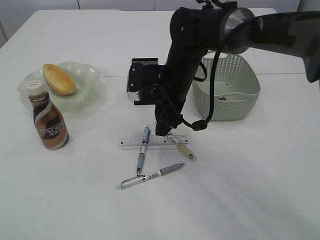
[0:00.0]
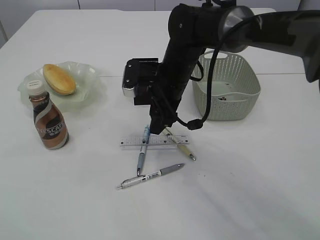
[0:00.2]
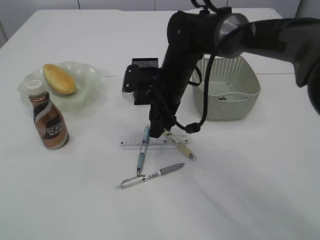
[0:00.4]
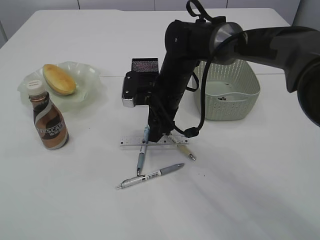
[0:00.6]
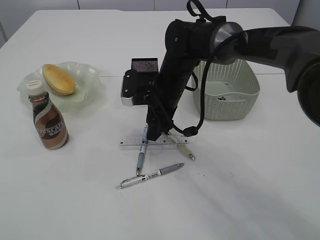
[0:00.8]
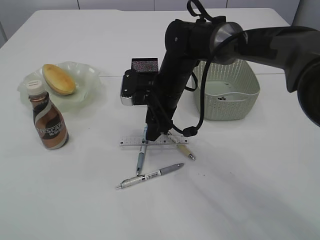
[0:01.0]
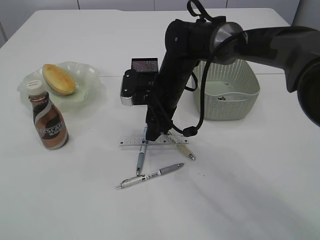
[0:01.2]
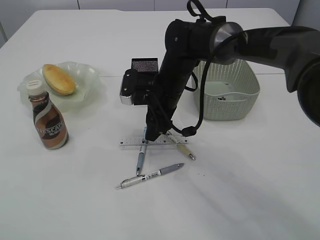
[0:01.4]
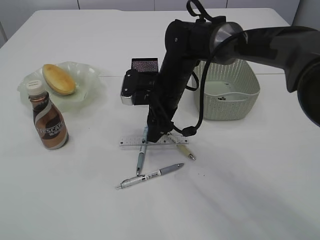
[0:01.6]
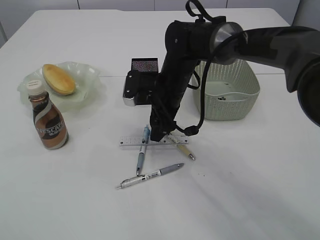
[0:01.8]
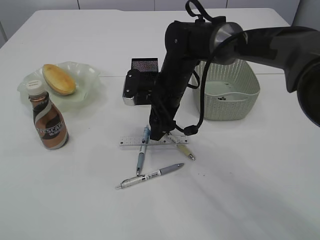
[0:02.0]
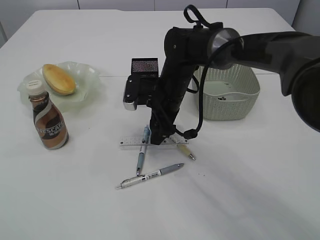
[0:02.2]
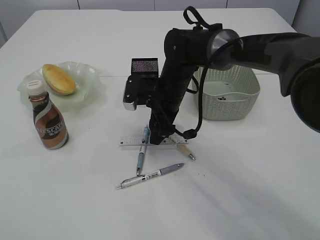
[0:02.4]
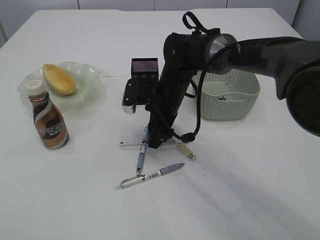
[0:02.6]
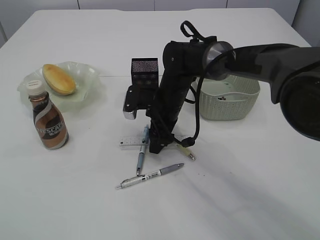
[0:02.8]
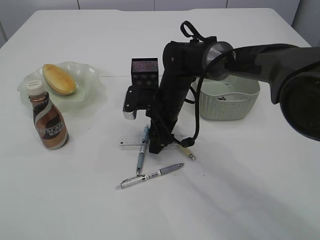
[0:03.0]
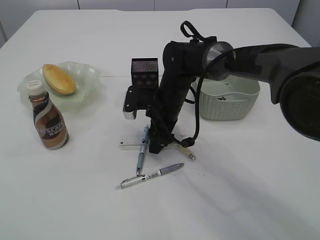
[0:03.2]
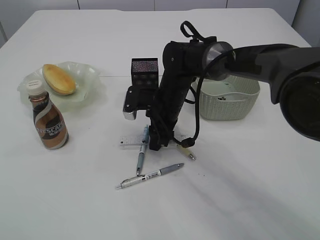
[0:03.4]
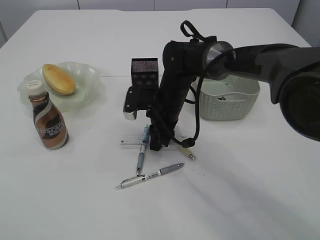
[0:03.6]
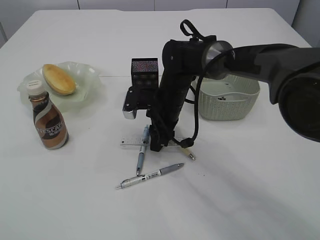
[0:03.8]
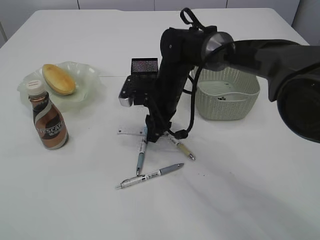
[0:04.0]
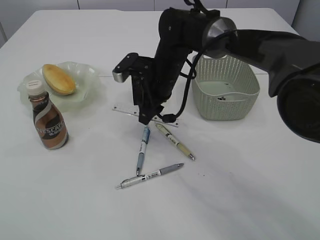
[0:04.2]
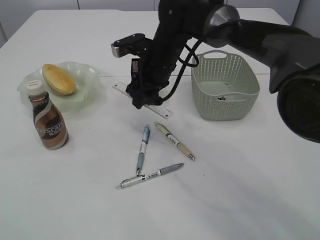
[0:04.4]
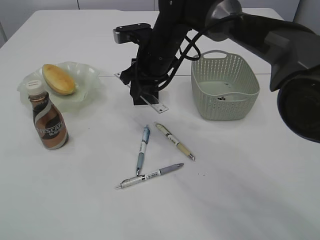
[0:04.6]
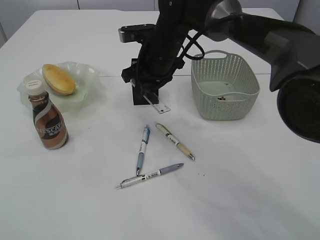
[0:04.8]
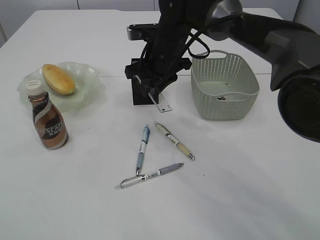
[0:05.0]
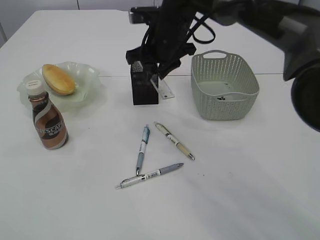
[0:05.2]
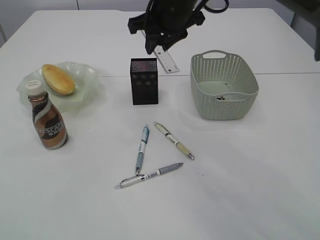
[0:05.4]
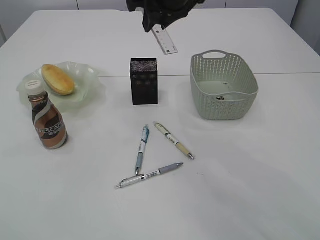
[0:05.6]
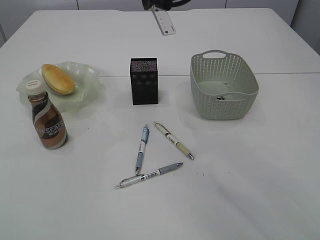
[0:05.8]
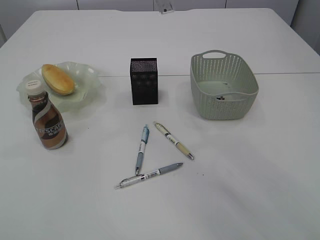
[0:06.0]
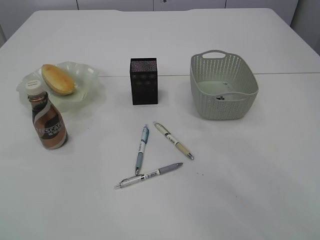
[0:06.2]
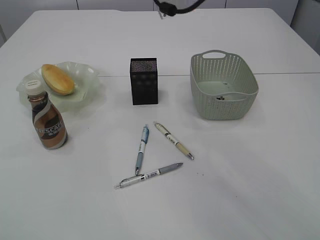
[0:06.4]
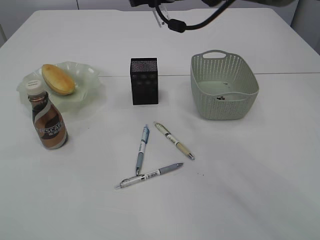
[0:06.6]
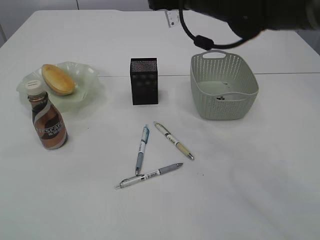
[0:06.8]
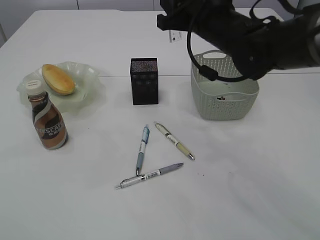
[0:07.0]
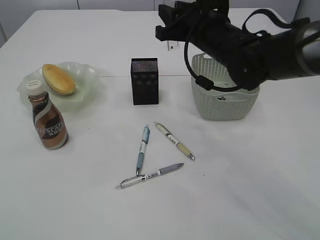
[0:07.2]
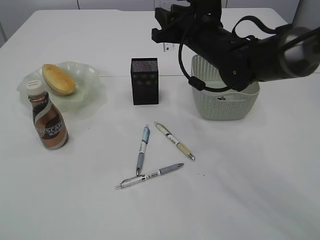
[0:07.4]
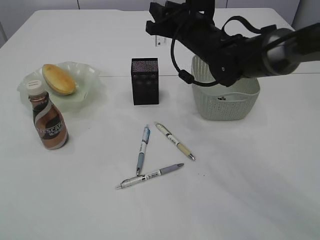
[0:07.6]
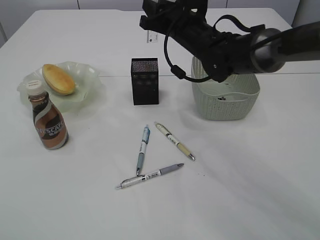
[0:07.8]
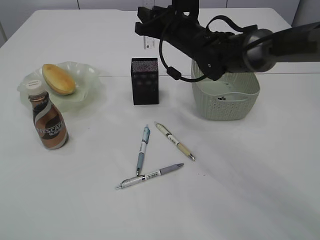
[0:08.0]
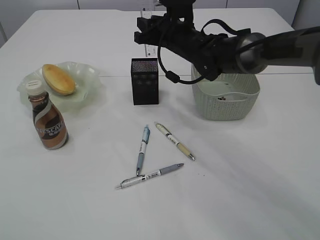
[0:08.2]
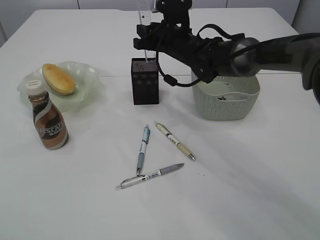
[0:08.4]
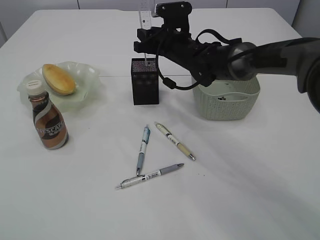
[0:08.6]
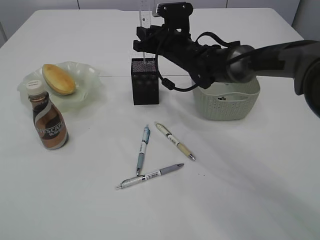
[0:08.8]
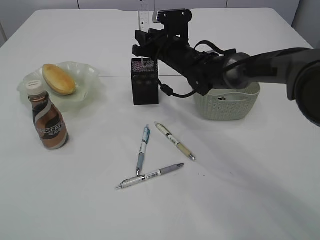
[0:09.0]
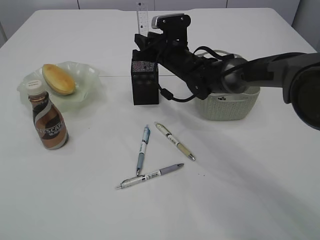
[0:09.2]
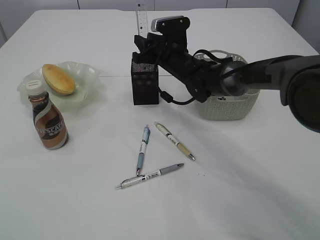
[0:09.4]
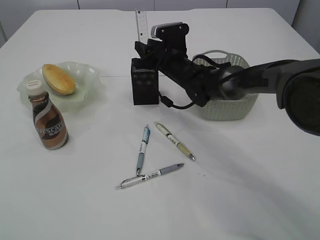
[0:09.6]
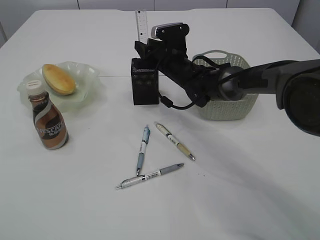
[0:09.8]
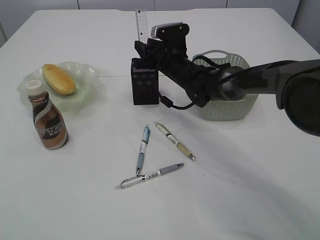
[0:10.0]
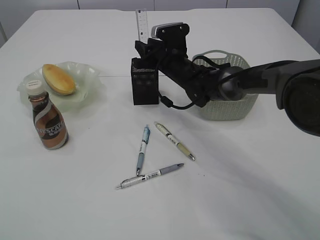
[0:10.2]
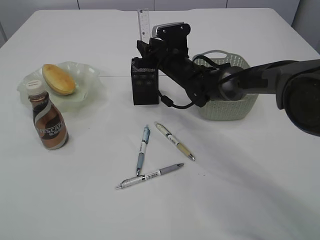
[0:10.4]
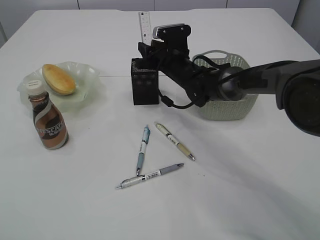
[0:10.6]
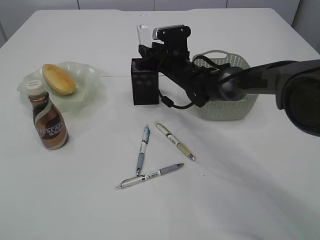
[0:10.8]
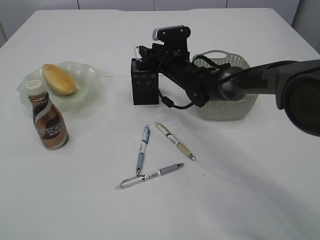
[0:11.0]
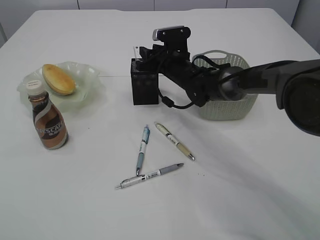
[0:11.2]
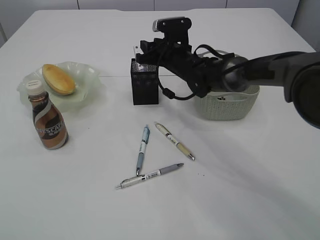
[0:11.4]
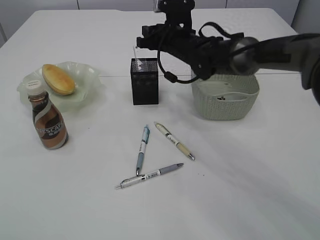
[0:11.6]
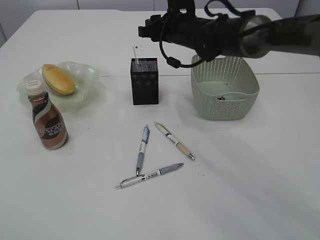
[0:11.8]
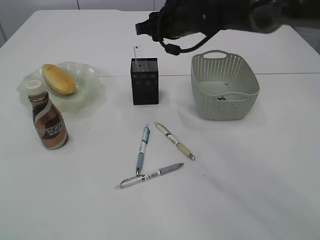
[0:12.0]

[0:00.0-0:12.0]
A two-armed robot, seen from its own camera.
Step, 0:00.0 to 0:04.0: pick up the ruler.
Step, 0:04.2 to 0:11.8: Place the ruler into the pen holder.
0:00.0 to 0:01.6: The grippers stay close to where they were, moving slightly.
0:01.6 to 0:03.0: There are only small adjustments of the grippers.
0:03.0 to 0:04.4: The right gripper heads upward, covering approximately 10 cm, and closes its fingers.
0:04.4 to 0:06.0: The right gripper goes some 20 cm upward.
0:06.0 to 0:07.6: The right gripper travels downward by roughly 15 cm.
0:07.6 to 0:09.0: The right gripper is displaced downward and forward by some 10 cm.
0:09.0 to 0:10.4: The grippers move only a little.
0:10.4 to 0:12.0: The right gripper is displaced upward by some 10 cm.

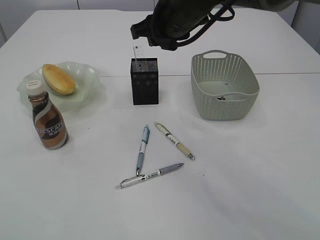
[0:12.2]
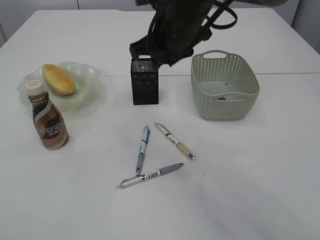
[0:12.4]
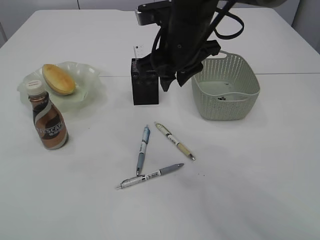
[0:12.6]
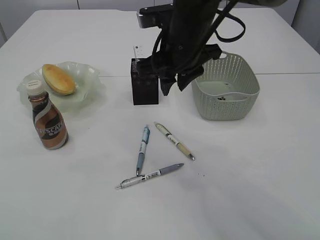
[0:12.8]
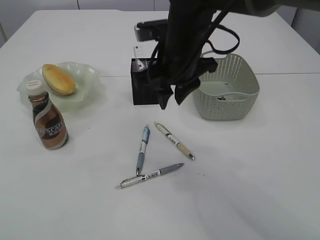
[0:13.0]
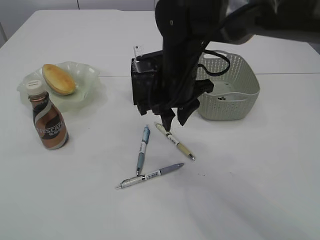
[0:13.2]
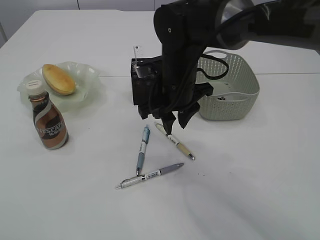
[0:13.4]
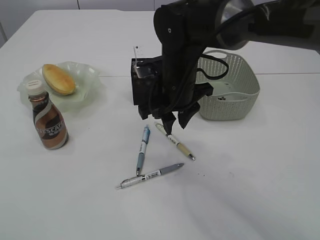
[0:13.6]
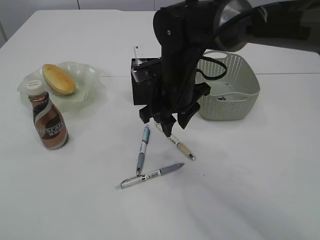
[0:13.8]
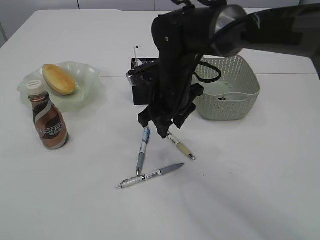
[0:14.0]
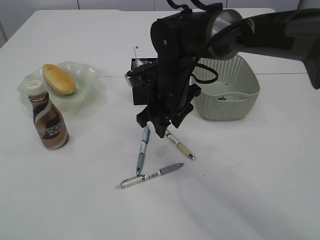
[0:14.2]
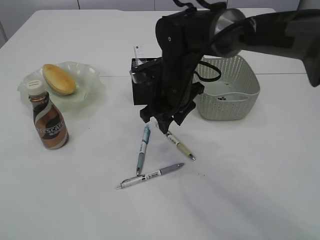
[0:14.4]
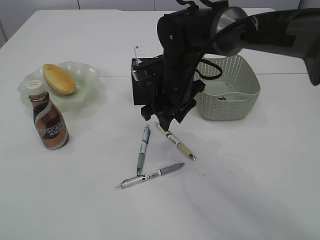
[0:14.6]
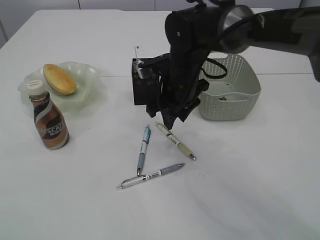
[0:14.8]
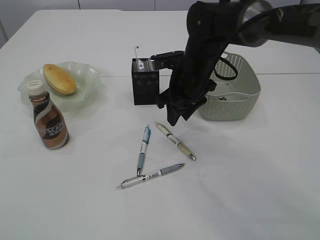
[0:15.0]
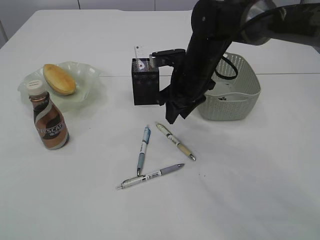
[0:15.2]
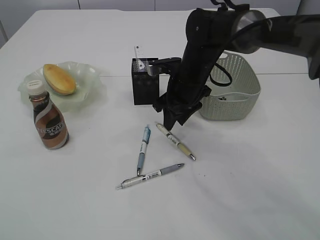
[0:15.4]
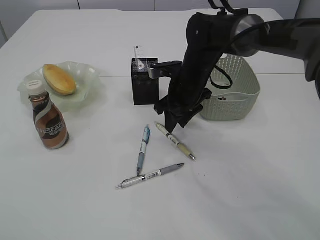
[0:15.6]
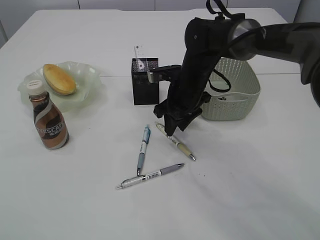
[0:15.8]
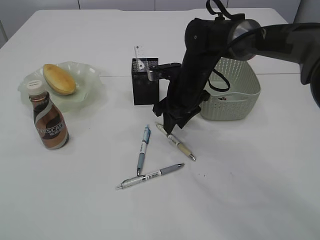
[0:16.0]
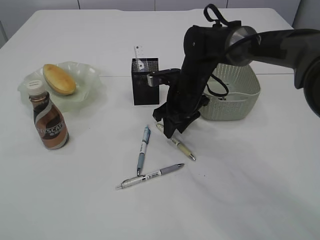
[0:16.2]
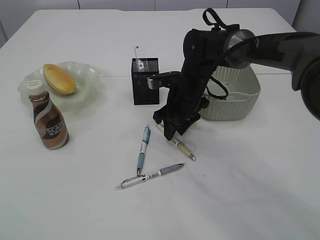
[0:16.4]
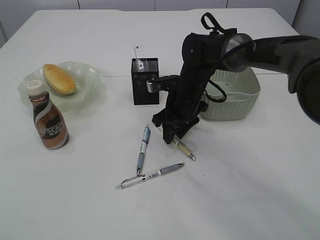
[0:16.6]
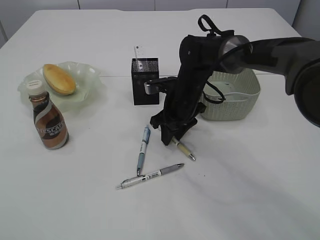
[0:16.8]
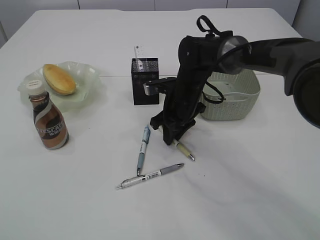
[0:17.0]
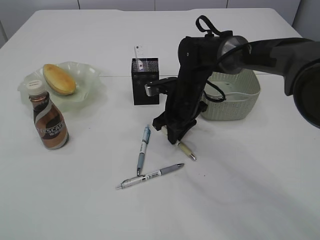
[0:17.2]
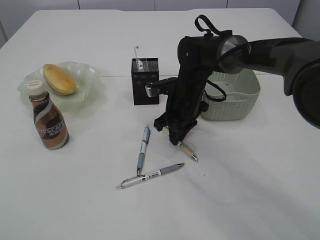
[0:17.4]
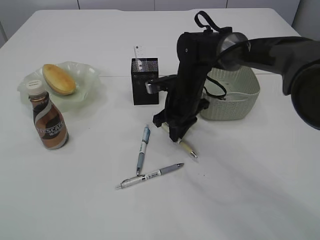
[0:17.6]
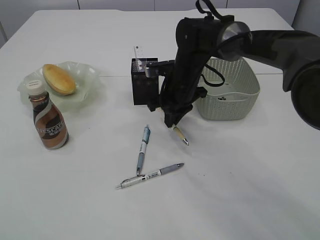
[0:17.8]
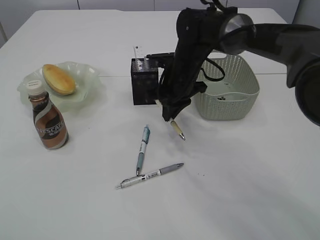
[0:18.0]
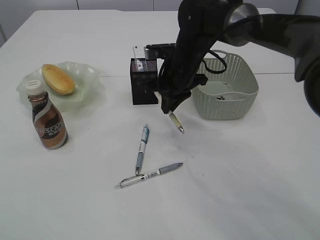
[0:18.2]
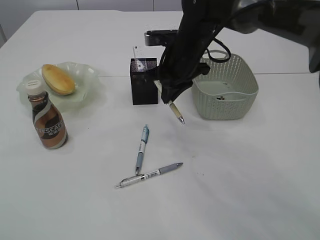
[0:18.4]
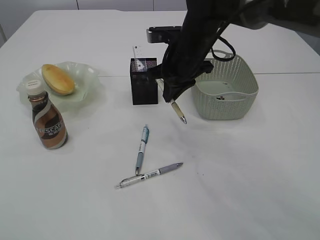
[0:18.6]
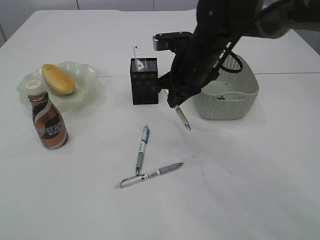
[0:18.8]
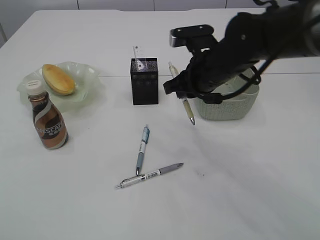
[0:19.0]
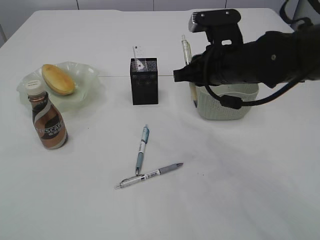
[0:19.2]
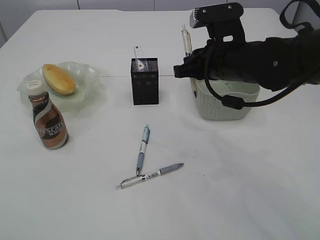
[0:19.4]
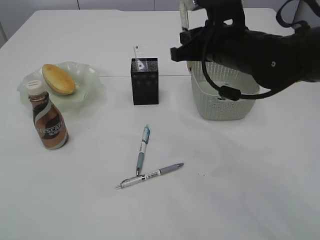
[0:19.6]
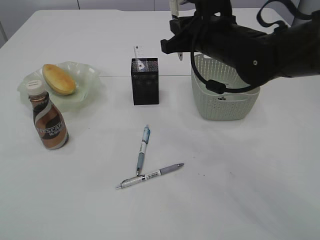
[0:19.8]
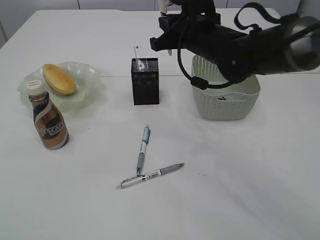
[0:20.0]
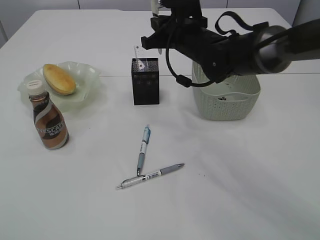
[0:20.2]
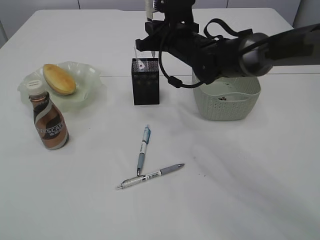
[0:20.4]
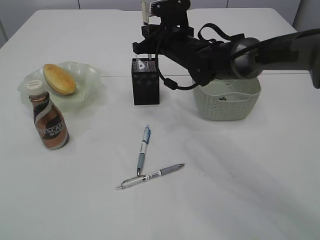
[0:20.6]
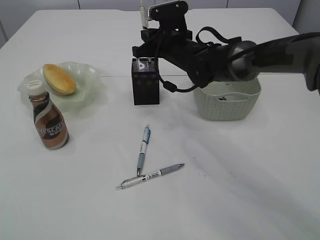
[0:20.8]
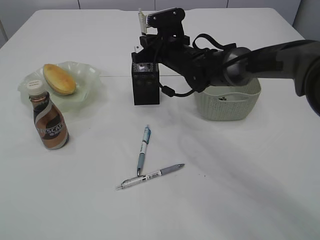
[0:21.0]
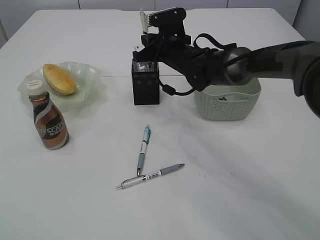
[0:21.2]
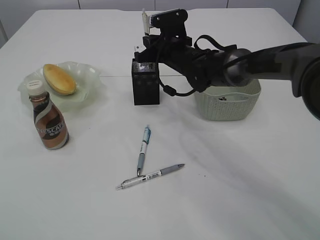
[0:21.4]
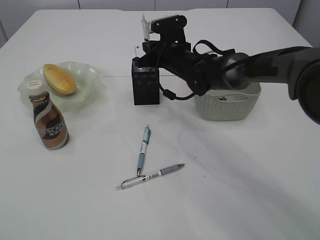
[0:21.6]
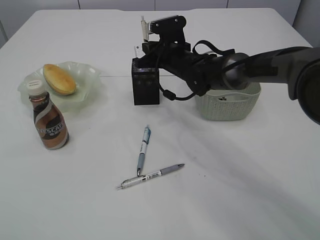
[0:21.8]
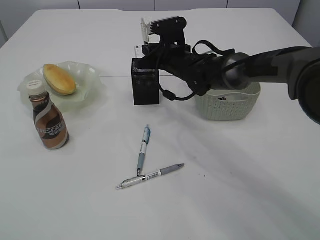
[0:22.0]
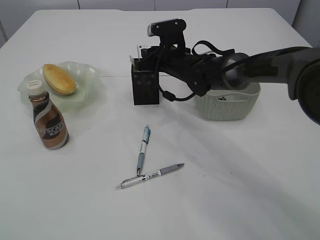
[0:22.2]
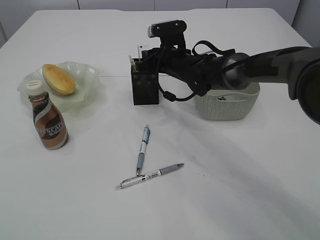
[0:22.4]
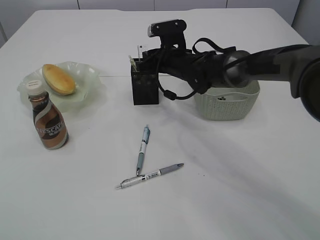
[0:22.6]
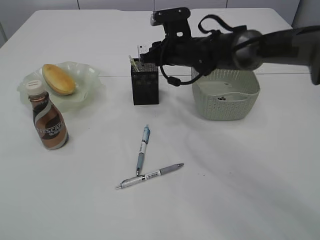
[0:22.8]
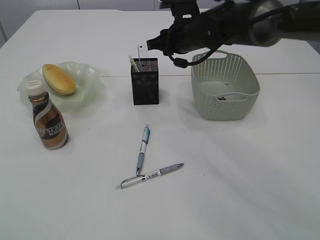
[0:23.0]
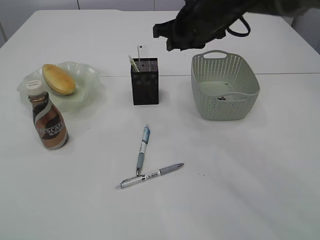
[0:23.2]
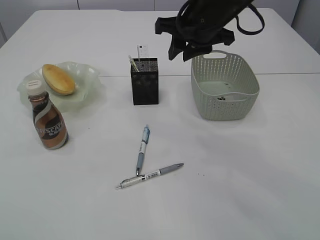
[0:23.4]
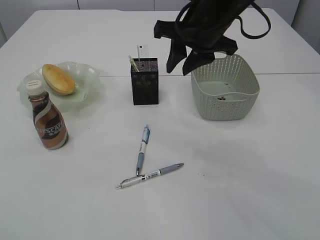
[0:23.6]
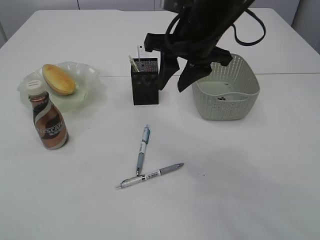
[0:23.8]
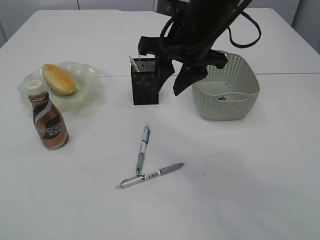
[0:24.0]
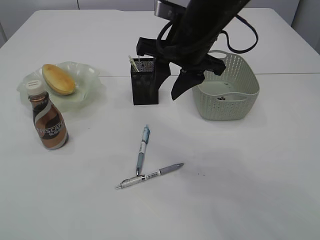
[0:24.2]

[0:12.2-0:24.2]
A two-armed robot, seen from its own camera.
Step, 0:12.2 to 0:18.4: Pick up the pen with right arm.
Step, 0:18.6 to 0:23.0: Place the pen into the pen holder.
0:12.2 to 0:13.8: The right gripper is displaced downward by about 10 cm.
0:13.8 to 0:15.2: The right gripper changes place by approximately 5 cm.
0:15.2 to 0:16.6: The right gripper heads downward, covering about 5 cm.
0:16.6 to 0:18.2: The right gripper goes some 5 cm upward, and closes up.
0:18.2 to 0:19.8: The right gripper travels upward and backward by roughly 10 cm.
0:19.8 to 0:21.2: The right gripper is displaced forward and downward by about 15 cm.
0:21.2 to 0:22.6: The right gripper opens its fingers.
0:22.6 to 0:24.2: The right gripper heads backward and upward, covering about 20 cm.
